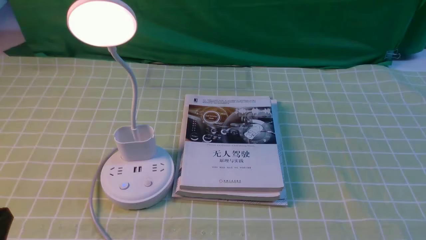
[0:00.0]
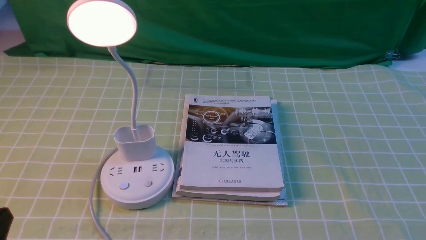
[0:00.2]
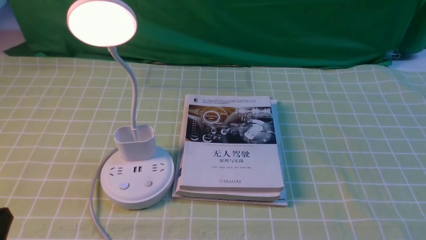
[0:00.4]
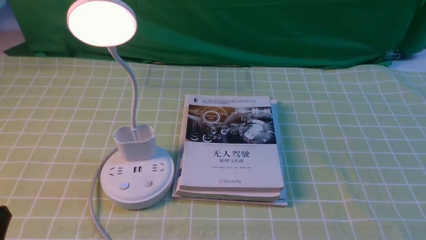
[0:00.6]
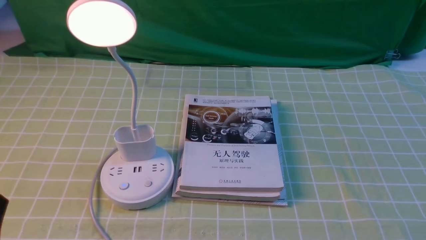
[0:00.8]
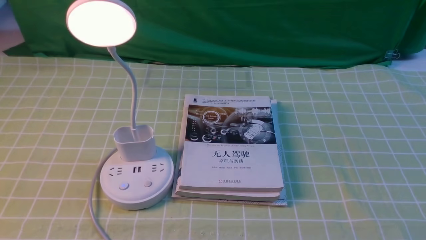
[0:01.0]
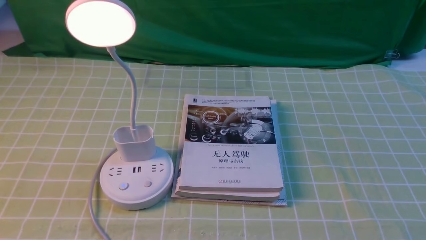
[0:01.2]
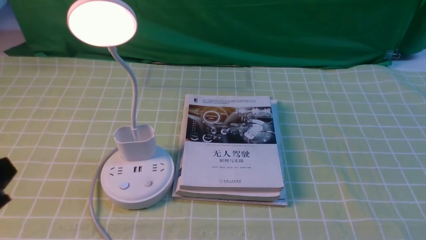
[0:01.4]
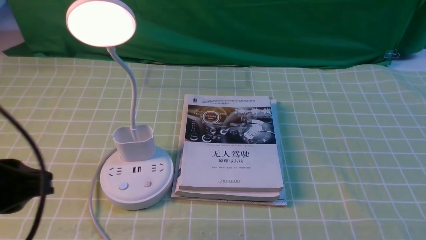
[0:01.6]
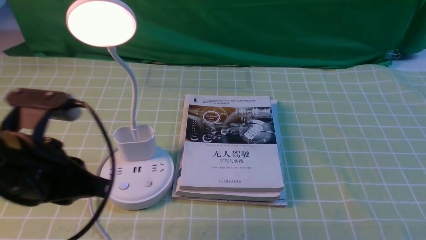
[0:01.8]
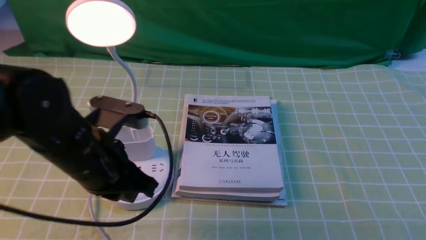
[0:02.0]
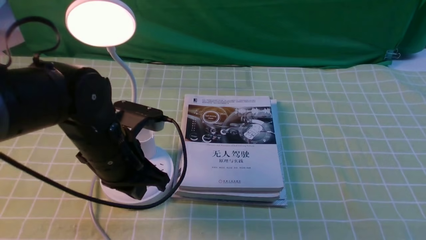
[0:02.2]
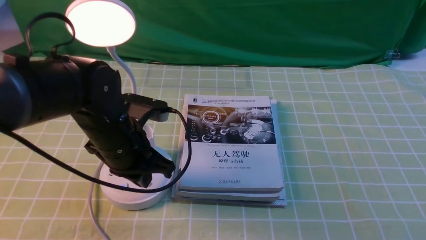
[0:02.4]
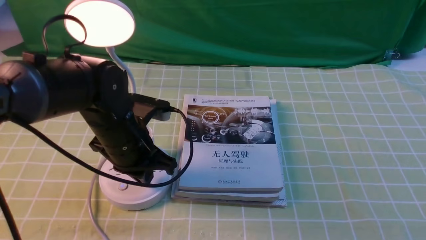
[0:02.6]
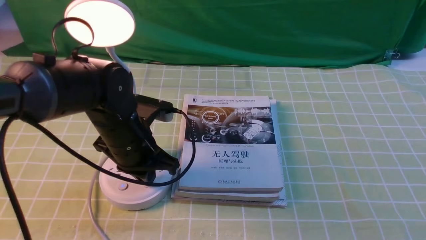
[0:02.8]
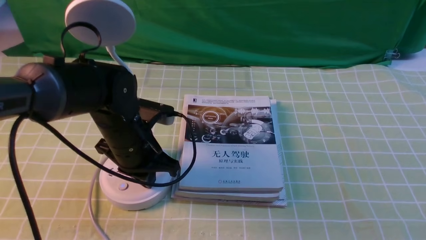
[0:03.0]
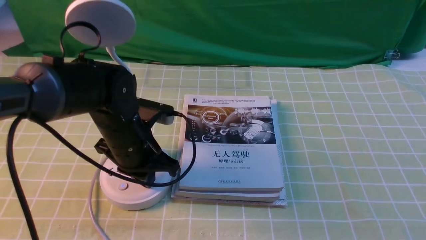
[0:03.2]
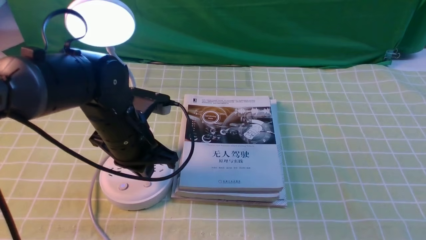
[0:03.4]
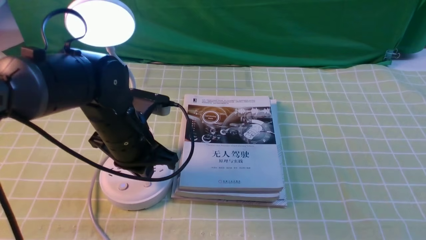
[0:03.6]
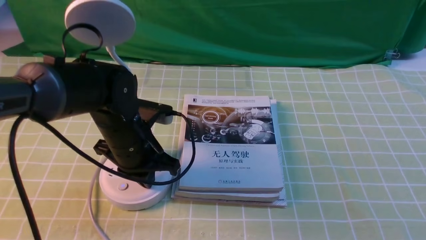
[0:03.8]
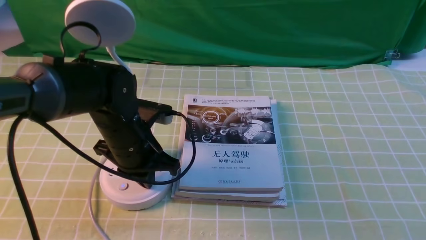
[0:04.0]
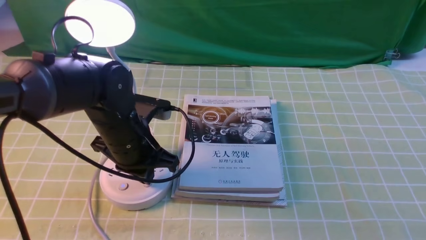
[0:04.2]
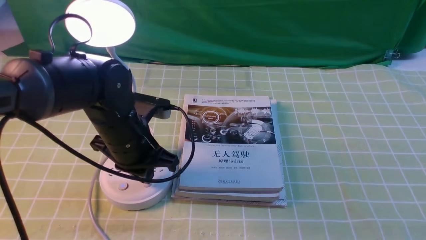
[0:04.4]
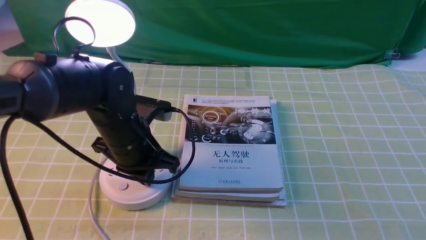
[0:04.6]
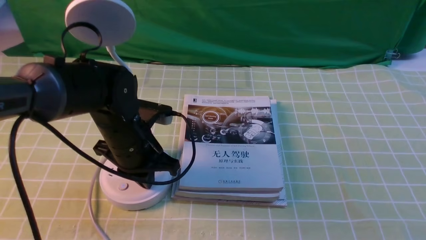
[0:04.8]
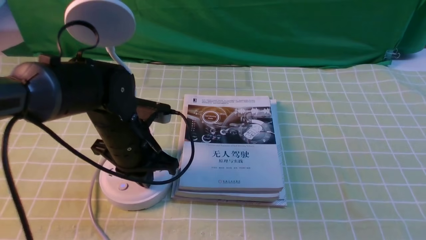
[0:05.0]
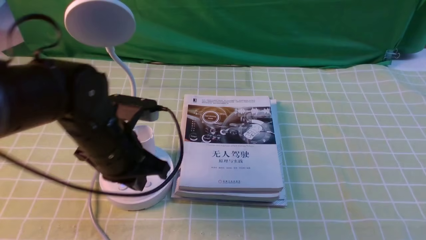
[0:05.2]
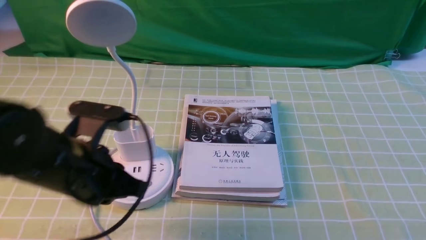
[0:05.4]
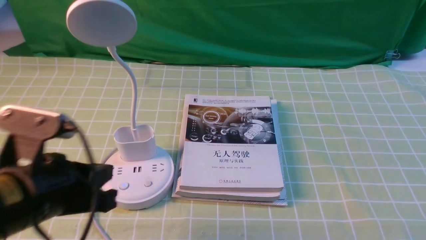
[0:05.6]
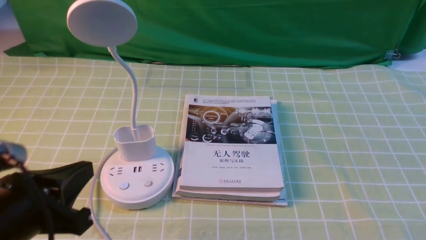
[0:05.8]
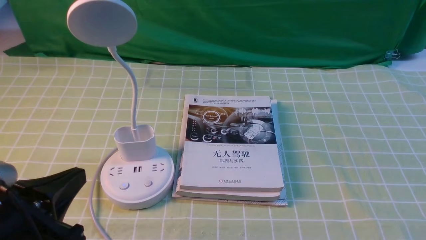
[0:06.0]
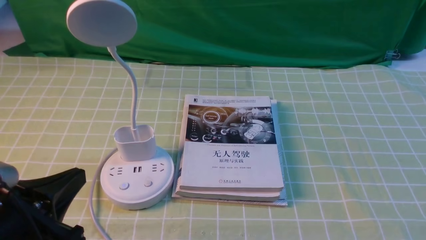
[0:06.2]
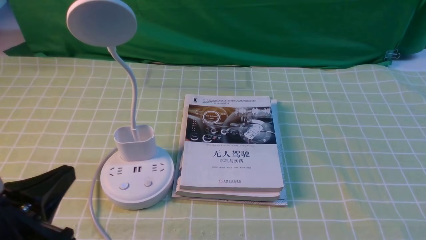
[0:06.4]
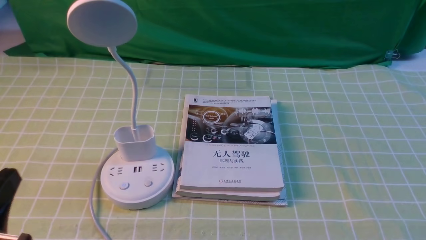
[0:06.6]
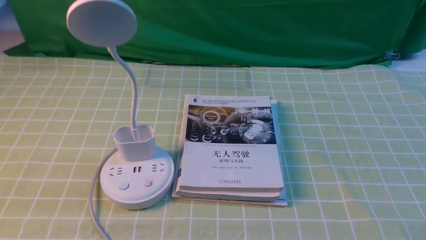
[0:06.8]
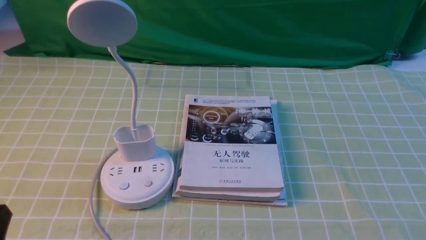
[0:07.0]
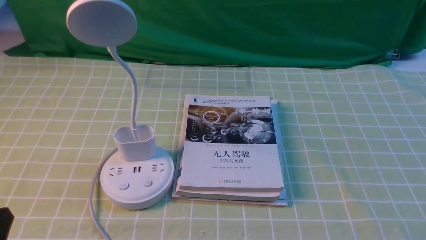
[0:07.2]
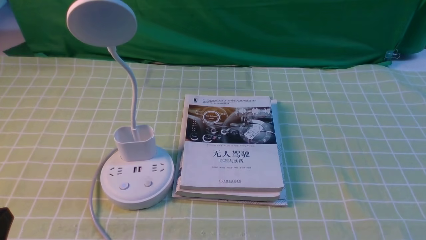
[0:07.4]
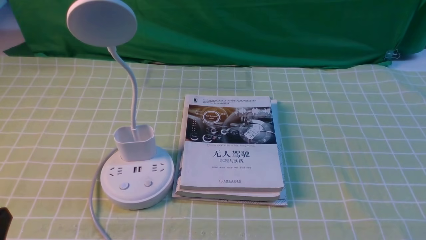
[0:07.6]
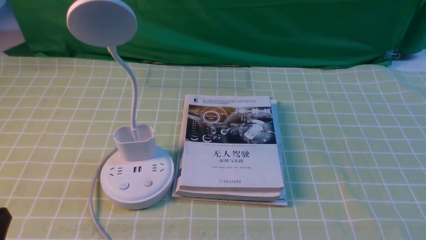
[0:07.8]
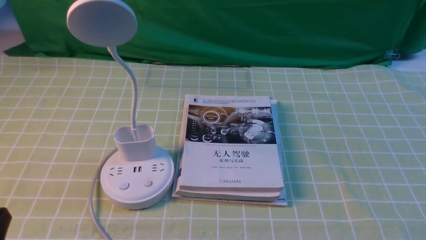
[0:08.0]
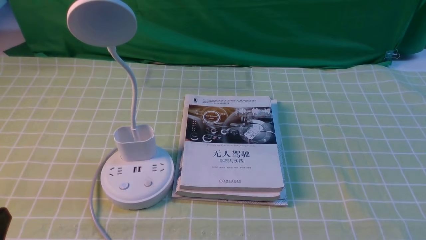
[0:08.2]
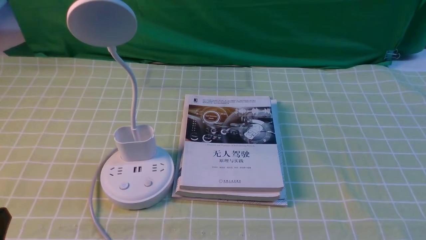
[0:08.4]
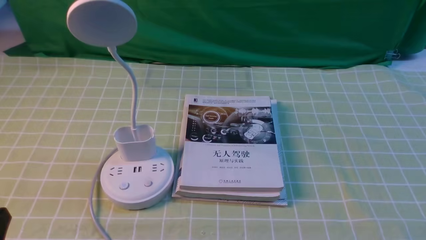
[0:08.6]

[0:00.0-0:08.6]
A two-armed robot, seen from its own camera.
Task of the whole recording: turn off the desk lamp on the green coffee tablecloth by hand.
Step, 0:00.0 to 0:05.2: use the left arm to press the button switch on the lamp holder.
0:00.0 to 0:01.4: The left gripper is displaced upward by some 10 cm.
0:01.4 to 0:02.8: The left gripper heads forward, to the right and downward, covering approximately 25 cm.
0:02.8 to 0:04.4: Both grippers stay put.
0:04.4 to 0:05.8: The left gripper travels backward and to the left by approximately 20 cm.
0:05.8 to 0:07.2: The left gripper heads backward and downward, covering roughly 10 cm.
0:07.2 to 0:08.6: Neither gripper changes place.
